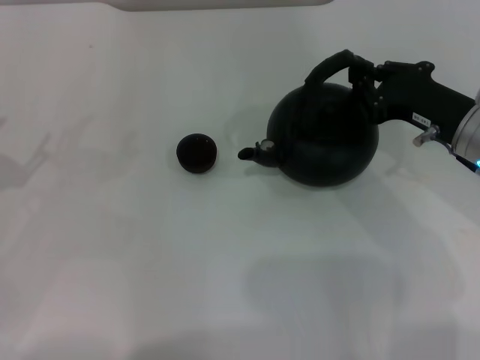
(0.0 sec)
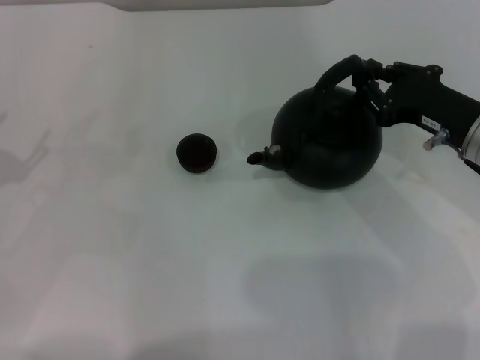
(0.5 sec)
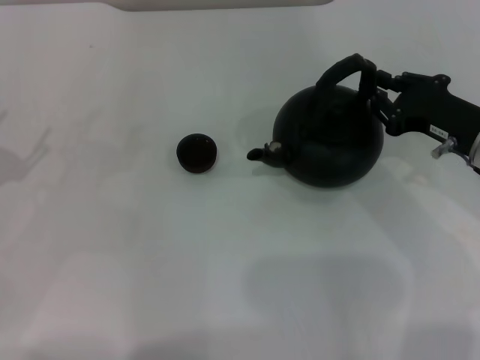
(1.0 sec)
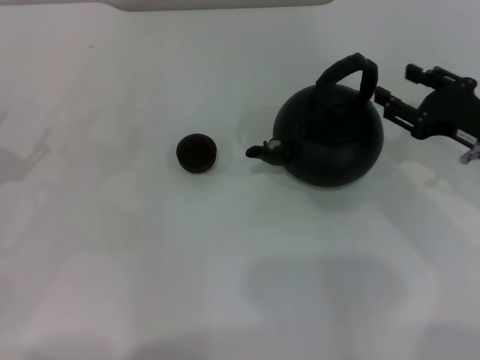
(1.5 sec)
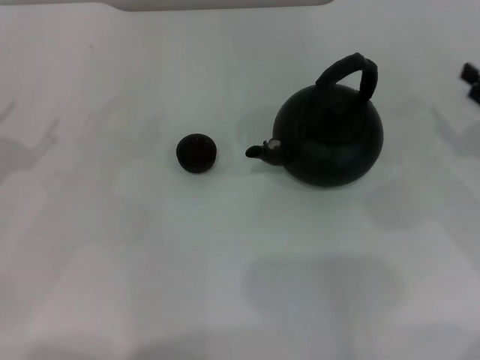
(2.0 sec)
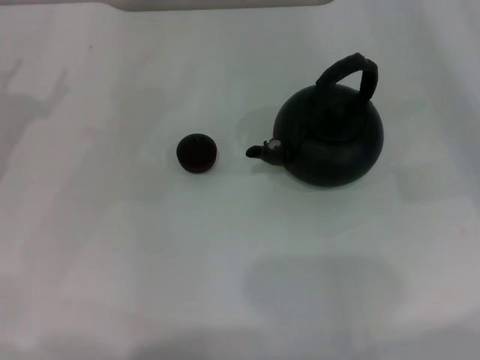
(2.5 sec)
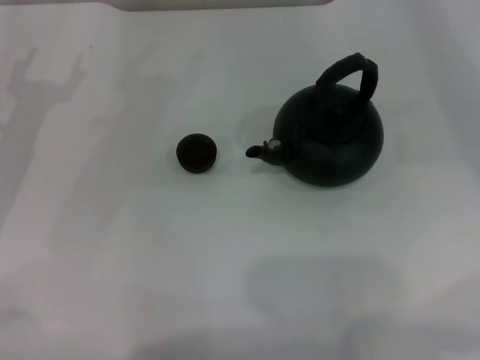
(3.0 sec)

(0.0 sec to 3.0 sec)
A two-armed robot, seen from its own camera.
Task of the whole recording: Grasp the handle of the teapot with one hand and pour tea into the teacup.
0.0 sec - 1.5 sec: The right gripper opens up.
1.5 sec - 3.0 sec: The right gripper moves to the right, roughly 15 cm.
